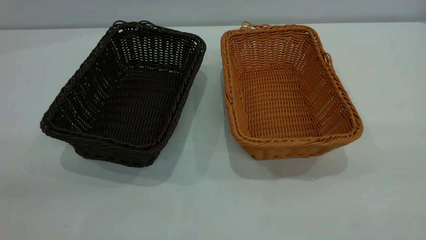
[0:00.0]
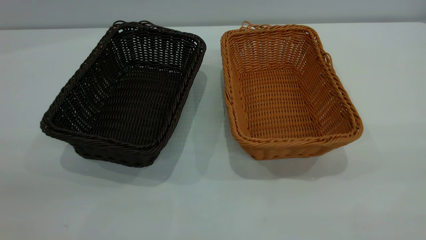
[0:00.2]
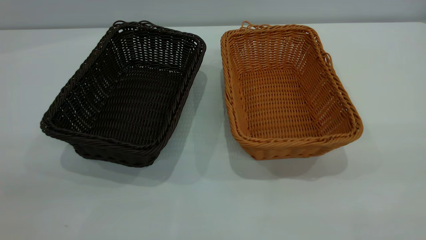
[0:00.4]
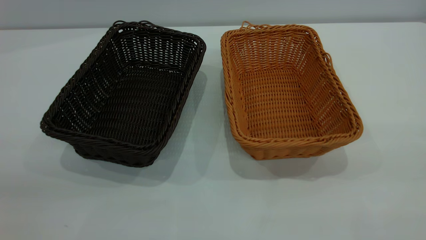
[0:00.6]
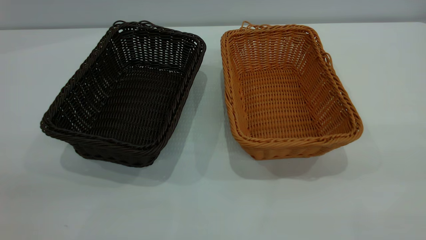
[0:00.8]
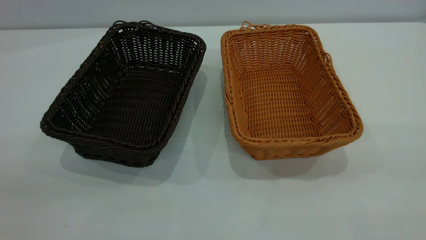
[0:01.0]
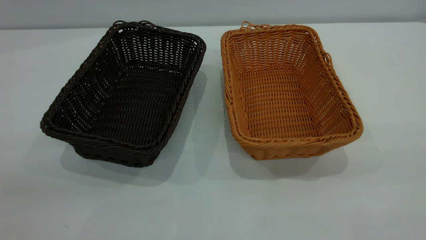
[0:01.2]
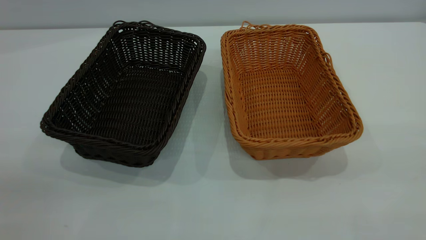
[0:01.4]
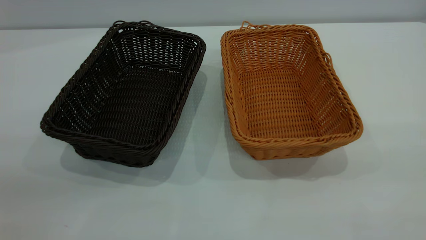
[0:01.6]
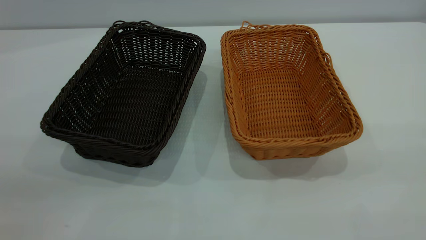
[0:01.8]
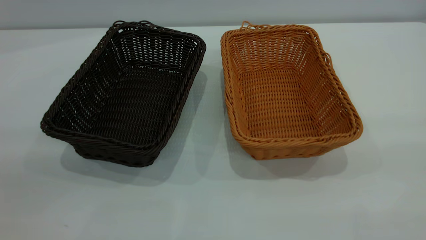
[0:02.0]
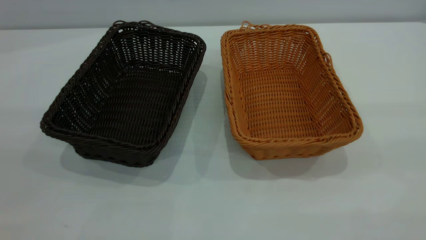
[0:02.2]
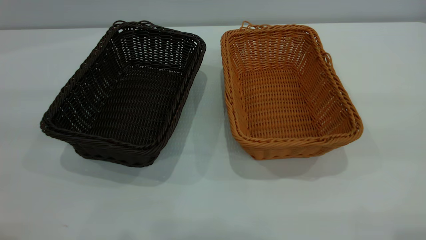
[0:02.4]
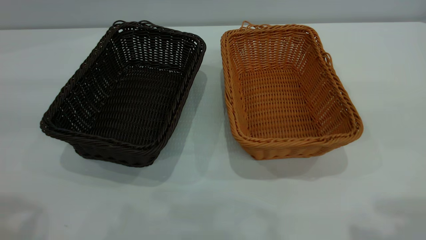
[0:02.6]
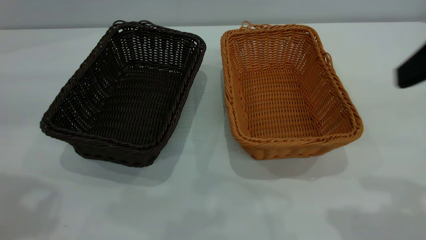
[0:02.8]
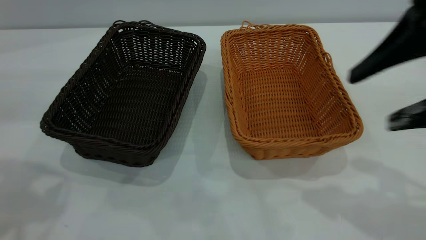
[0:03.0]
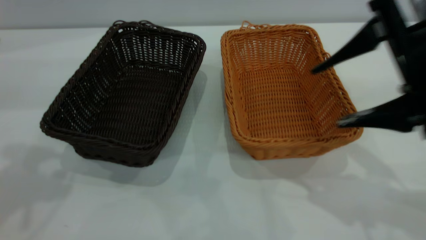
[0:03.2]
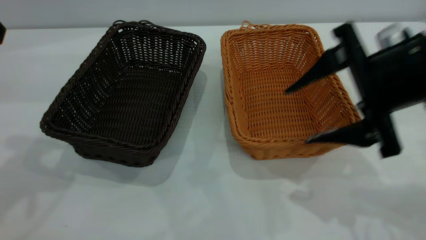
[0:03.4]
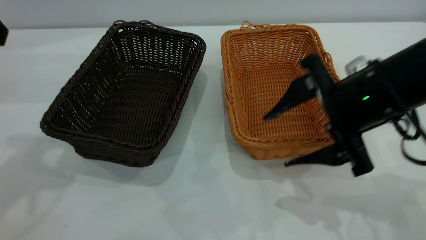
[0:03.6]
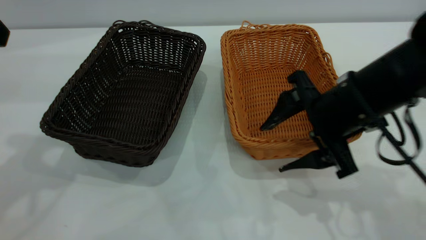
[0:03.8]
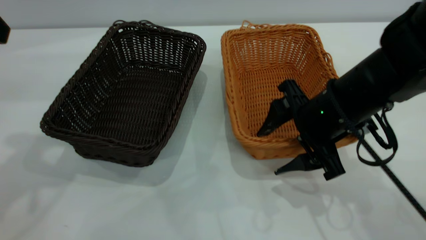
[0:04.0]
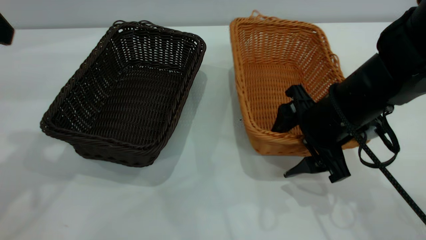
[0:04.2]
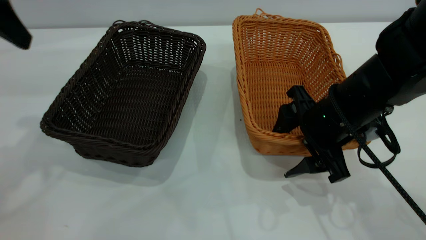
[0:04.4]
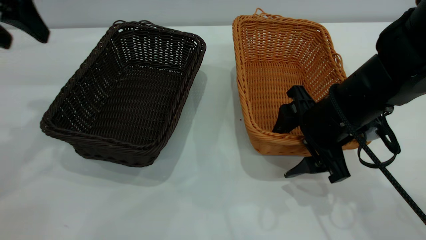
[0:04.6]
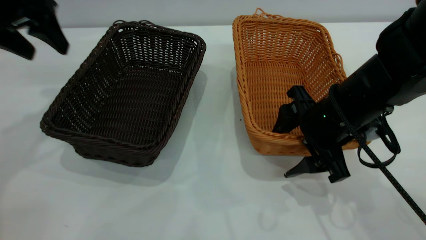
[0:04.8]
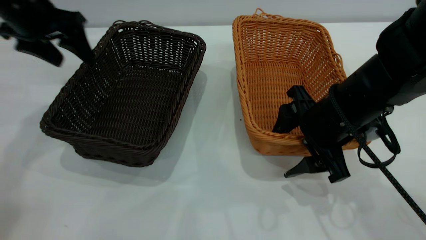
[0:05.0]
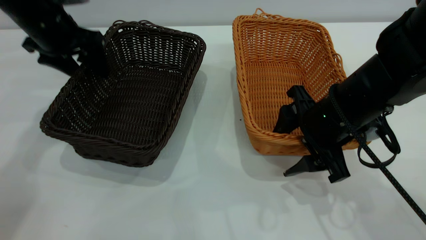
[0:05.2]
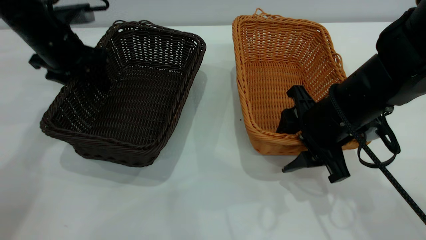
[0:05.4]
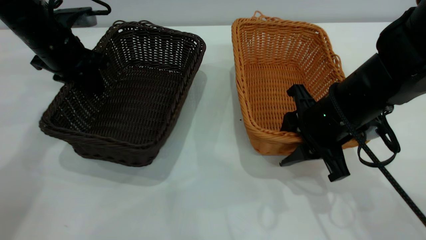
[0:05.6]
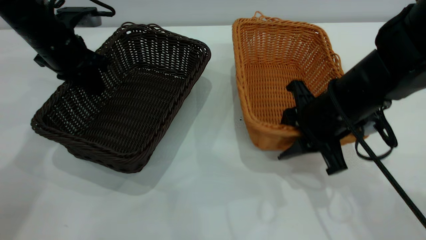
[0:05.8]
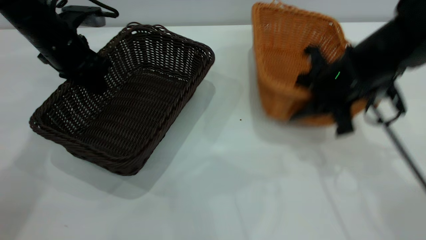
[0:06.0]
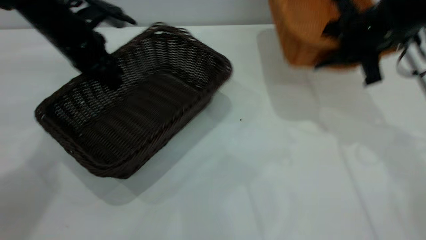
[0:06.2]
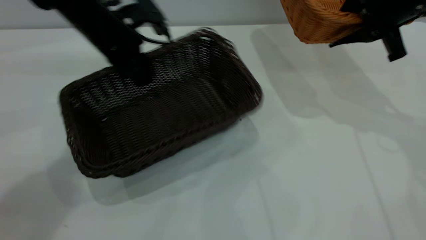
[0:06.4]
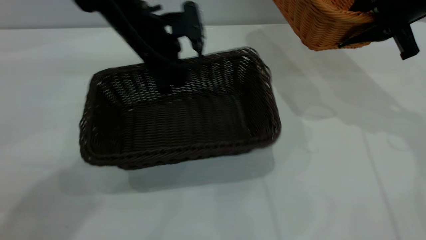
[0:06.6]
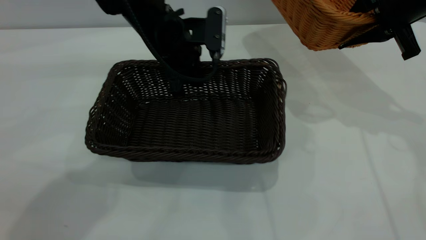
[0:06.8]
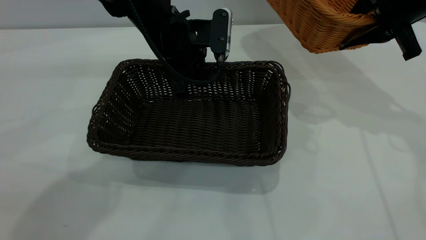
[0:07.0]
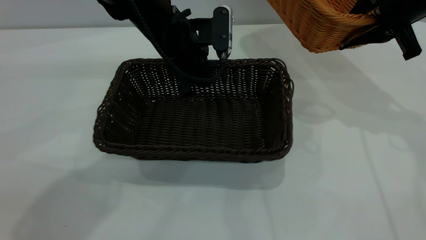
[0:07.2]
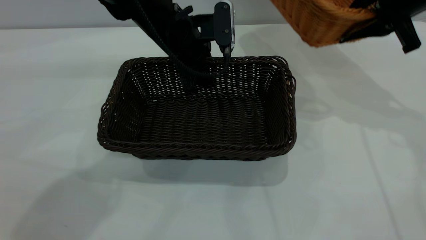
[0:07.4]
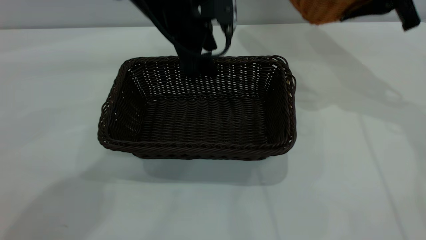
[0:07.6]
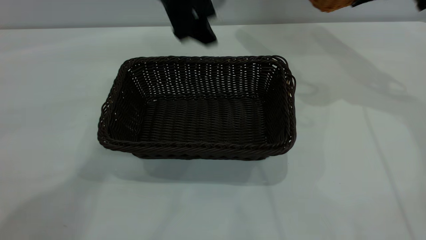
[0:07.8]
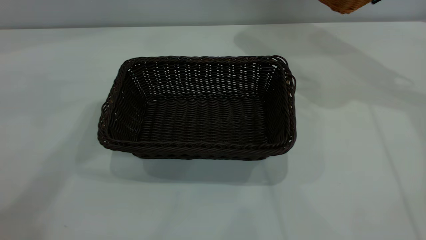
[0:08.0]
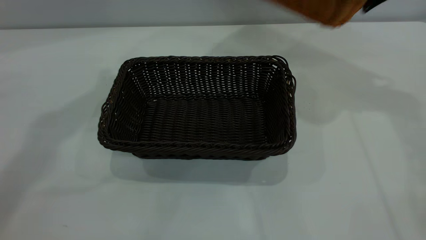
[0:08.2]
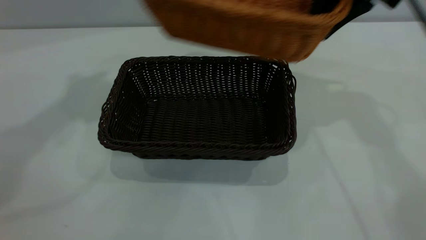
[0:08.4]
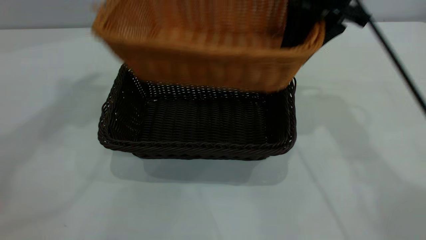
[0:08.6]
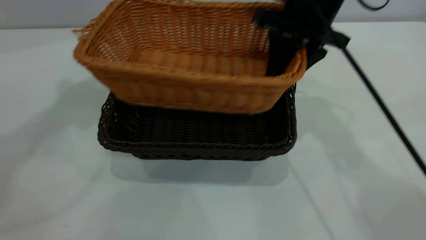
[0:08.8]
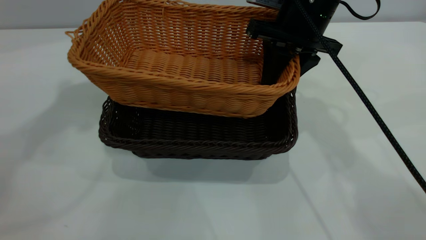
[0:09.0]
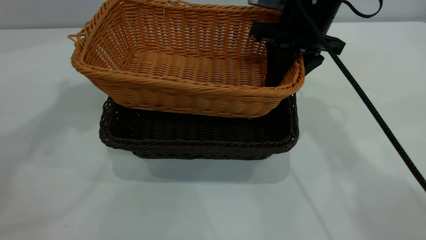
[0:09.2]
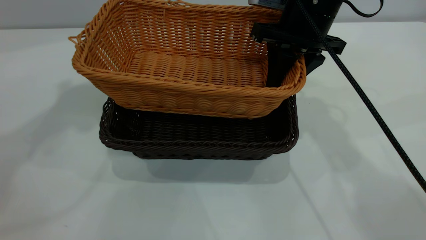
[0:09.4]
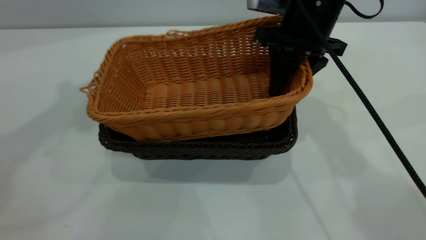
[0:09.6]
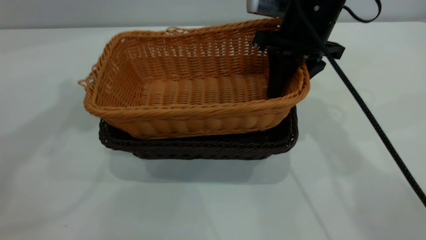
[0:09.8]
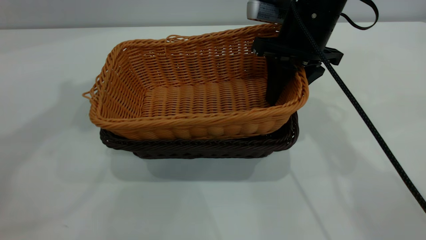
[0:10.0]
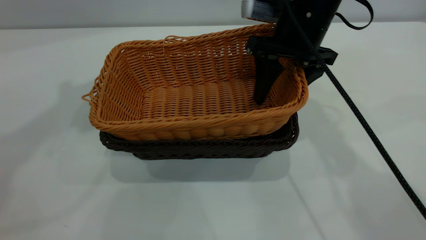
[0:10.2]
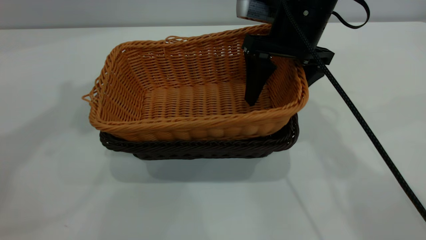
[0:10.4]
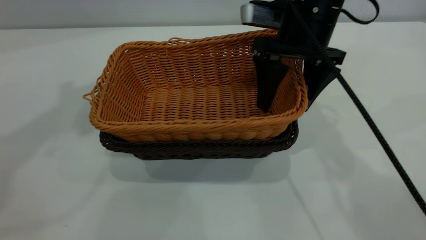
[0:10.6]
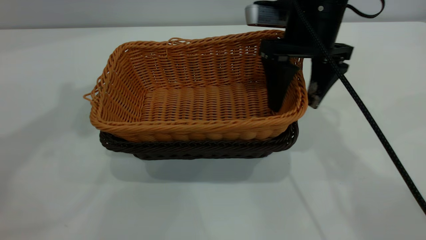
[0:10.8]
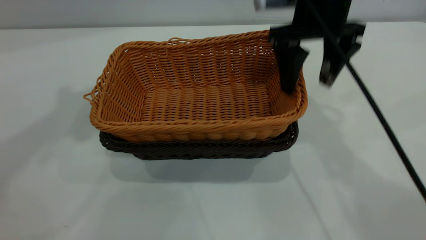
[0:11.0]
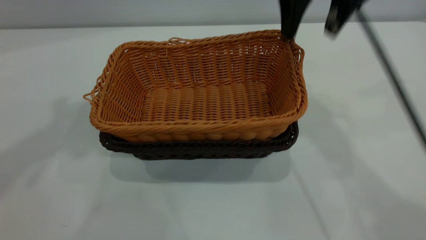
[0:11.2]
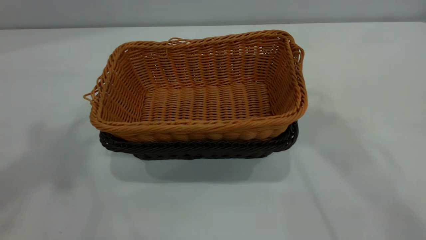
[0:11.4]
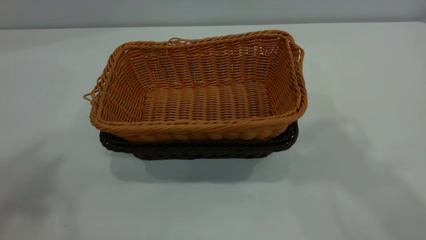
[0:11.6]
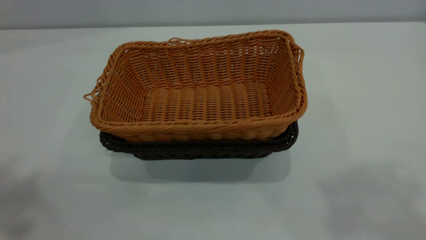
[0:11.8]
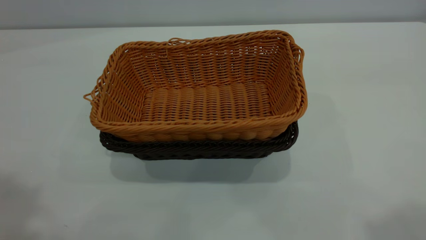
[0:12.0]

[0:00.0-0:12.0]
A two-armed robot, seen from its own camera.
Task of the whole recording: the left gripper grasp the black basket and place it in the center of the table, the right gripper grasp the brown basket and place it inside the black one.
Step, 0:00.0 to 0:05.8: Pick up the light basket with the right gripper.
Step, 0:06.2 to 0:07.6: Move the dark basket to the center of view.
Step, 0:07.8 to 0:11.0: Place the light basket on the dark basket.
0:00.0 to 0:01.6: Neither gripper changes place.
0:01.6 to 0:03.0: The right gripper moves forward and downward, approximately 25 cm.
0:03.0 to 0:04.4: The right gripper heads downward, forward and to the left, covering approximately 20 cm. The left gripper heads forward, covering some 10 cm.
0:04.4 to 0:06.0: The left gripper shifts roughly 20 cm downward and forward, and closes its fingers. The right gripper is displaced forward by roughly 5 cm, and closes its fingers.
0:06.0 to 0:07.6: The left gripper heads to the right, covering some 20 cm, and opens. Meanwhile the right gripper goes some 15 cm upward, forward and to the right.
0:07.6 to 0:09.0: The right gripper travels to the left by some 15 cm. Meanwhile the left gripper shifts about 35 cm upward and to the left.
0:09.0 to 0:10.4: The right gripper opens up.
0:10.4 to 0:12.0: The right gripper heads upward, backward and to the right, covering roughly 40 cm, while the left gripper is displaced backward by about 20 cm.

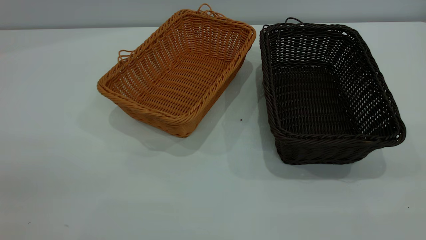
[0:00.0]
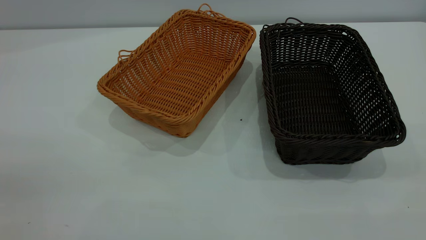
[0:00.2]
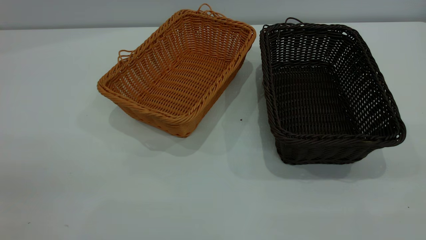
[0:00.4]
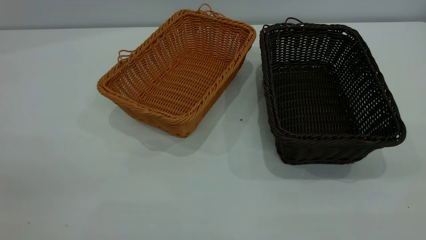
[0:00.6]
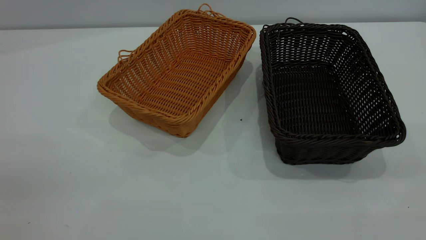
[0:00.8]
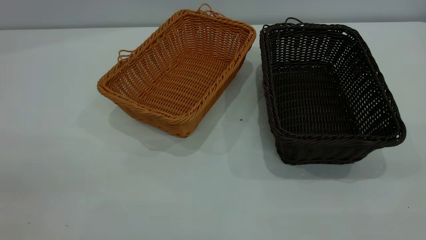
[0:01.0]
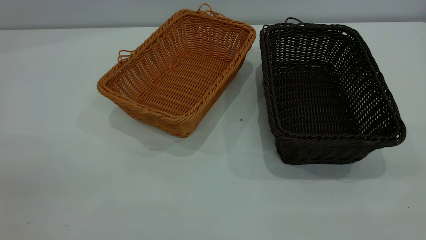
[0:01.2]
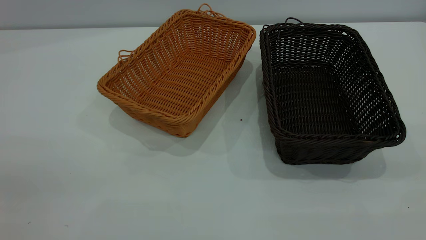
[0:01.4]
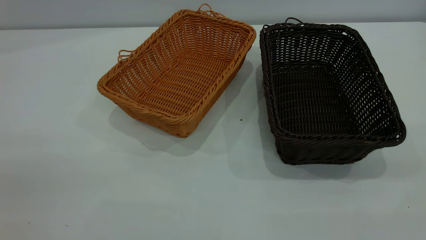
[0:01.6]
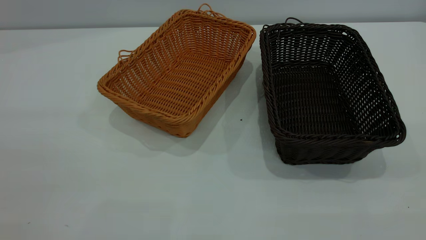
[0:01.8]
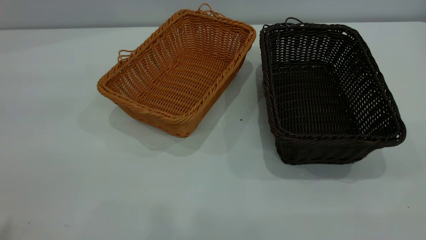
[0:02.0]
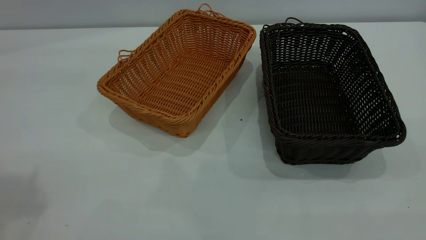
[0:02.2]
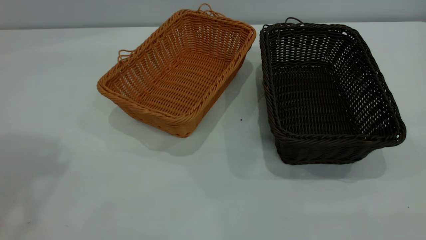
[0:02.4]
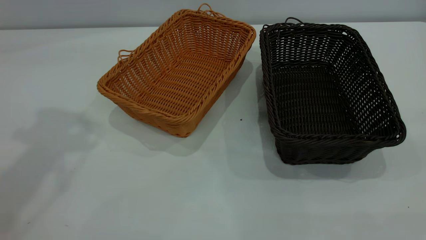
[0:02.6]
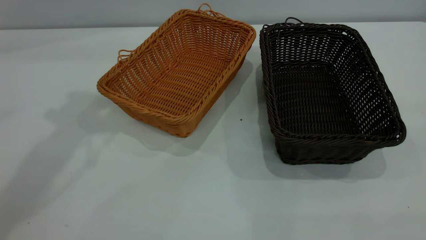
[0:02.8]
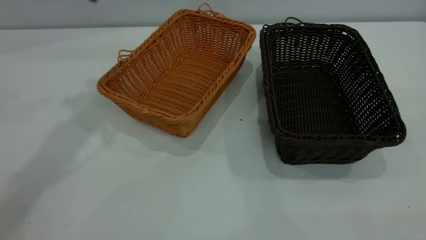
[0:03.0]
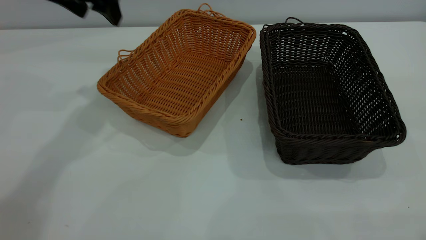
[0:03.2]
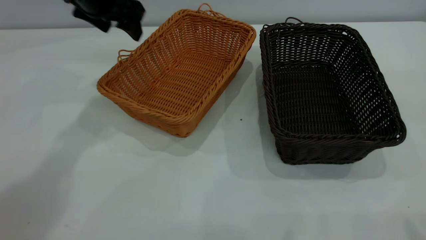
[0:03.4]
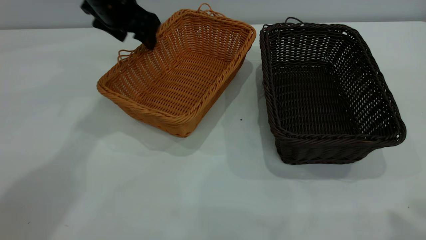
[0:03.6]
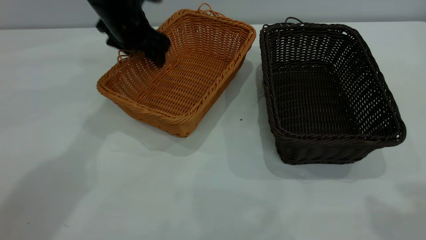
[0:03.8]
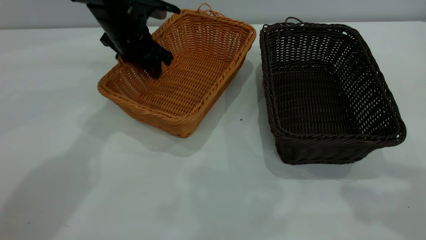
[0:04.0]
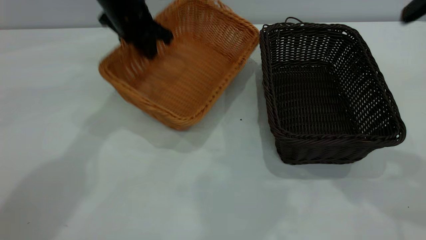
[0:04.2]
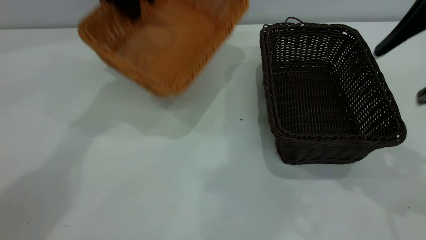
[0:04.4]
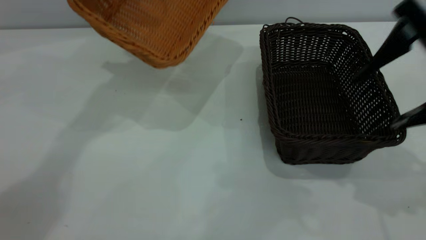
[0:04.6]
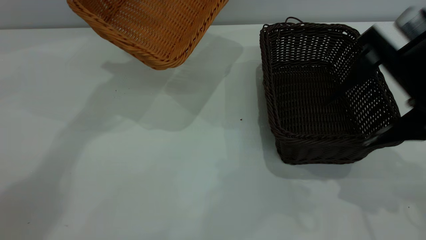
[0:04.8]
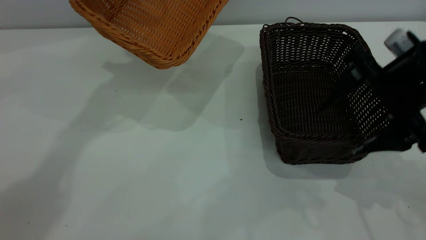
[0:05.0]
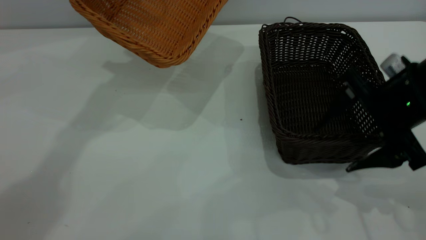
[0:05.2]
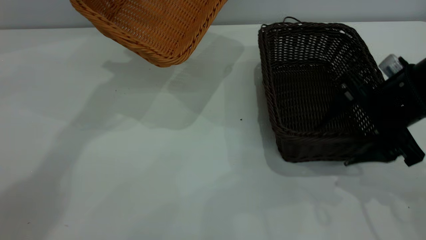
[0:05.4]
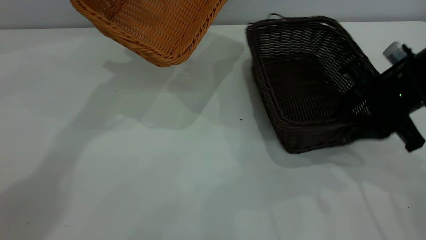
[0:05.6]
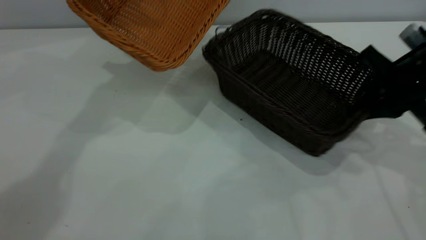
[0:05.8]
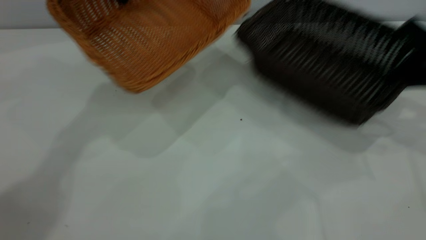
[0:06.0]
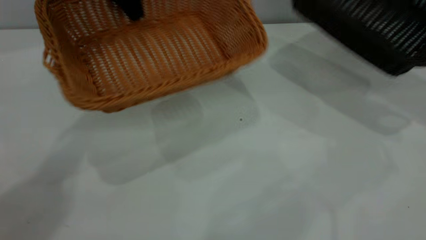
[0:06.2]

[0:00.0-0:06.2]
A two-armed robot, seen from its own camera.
Task of the whole recording: the left gripper grasp the brown basket and place it in the center of the table, the right gripper grasp the black basket and place it inside the brown one.
Step, 0:00.0 to 0:05.8: Pick up the light basket with the right gripper.
0:00.0 to 0:01.6: The two grippers keep their place.
0:01.6 to 0:03.2: The left gripper travels forward by some 40 cm.
0:03.2 to 0:04.6: The left gripper moves forward, about 5 cm, goes downward and returns, roughly 10 cm each way, and closes its fingers. Meanwhile the right gripper shifts about 25 cm downward and forward.
0:04.6 to 0:06.2: The right gripper heads to the right and forward, covering approximately 20 cm, and closes up.
